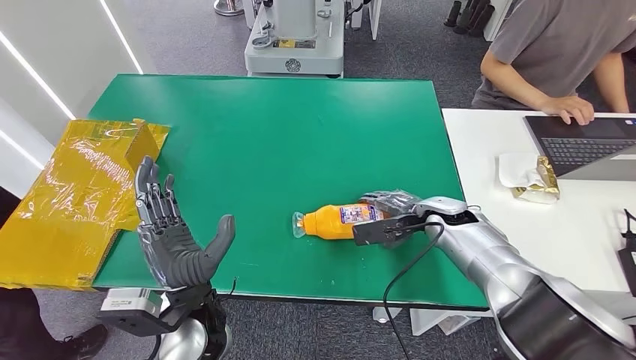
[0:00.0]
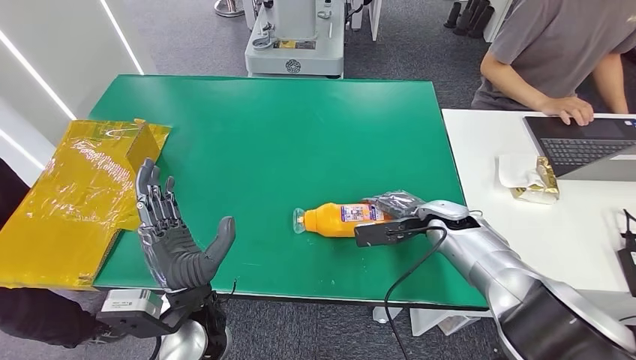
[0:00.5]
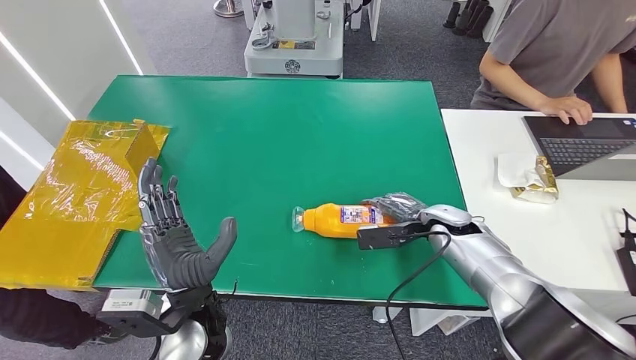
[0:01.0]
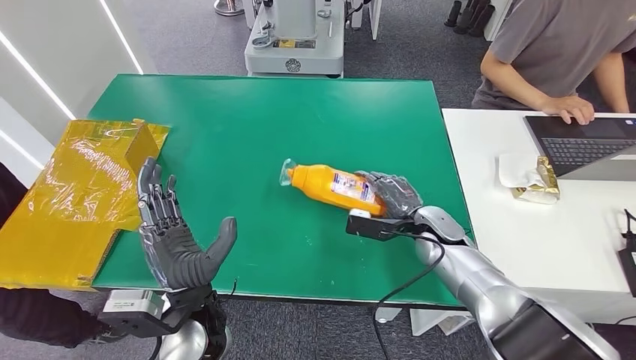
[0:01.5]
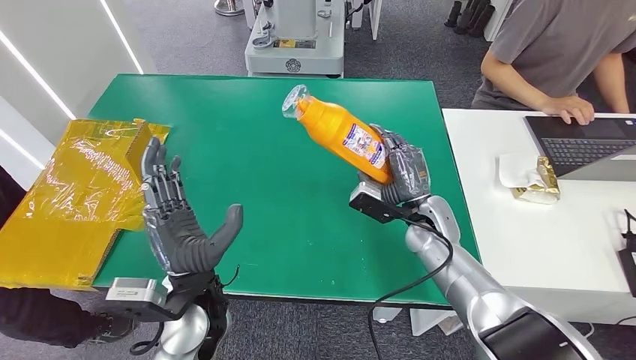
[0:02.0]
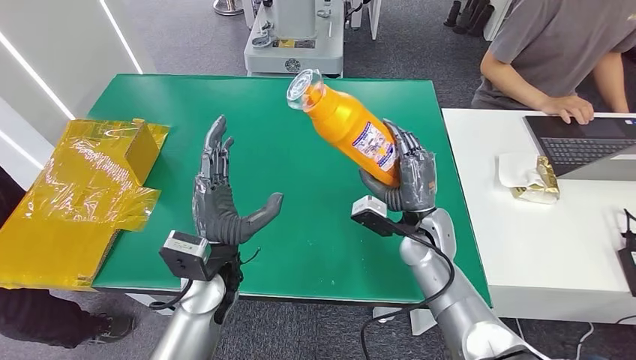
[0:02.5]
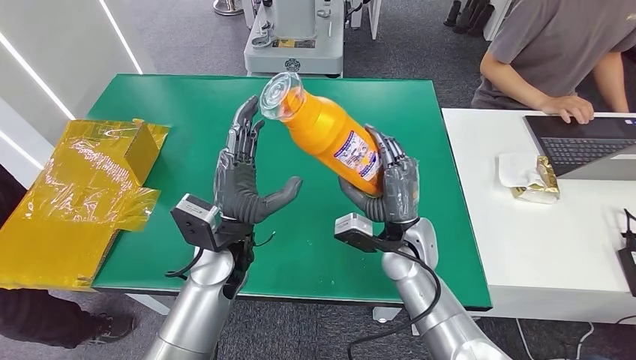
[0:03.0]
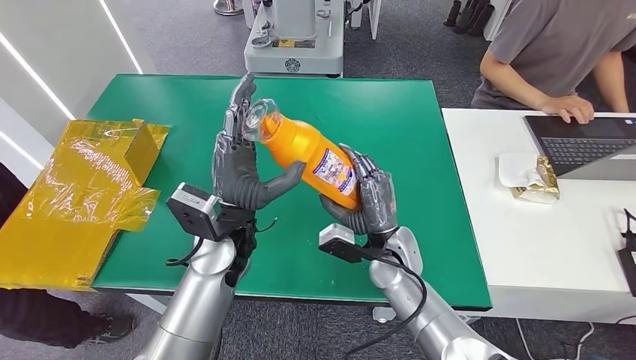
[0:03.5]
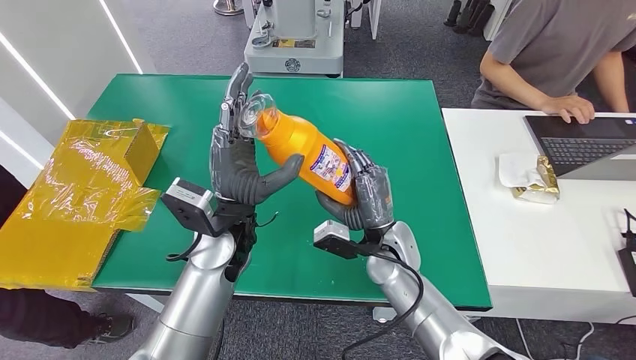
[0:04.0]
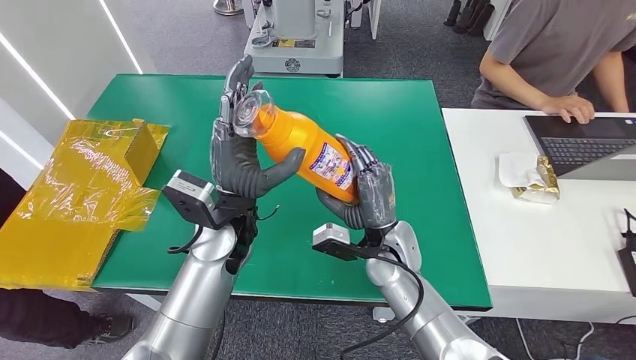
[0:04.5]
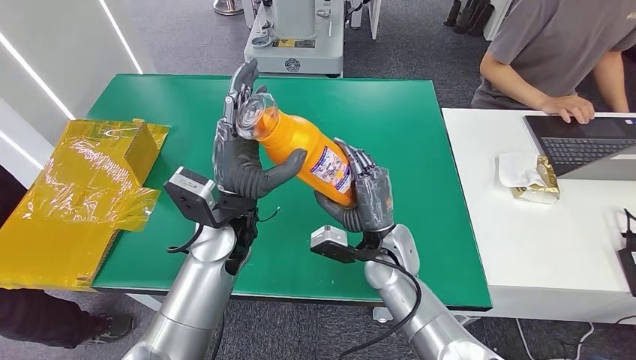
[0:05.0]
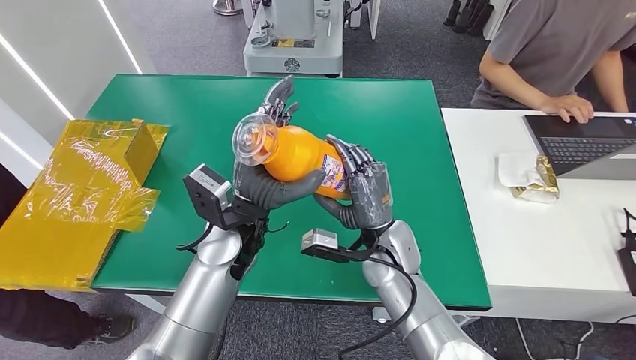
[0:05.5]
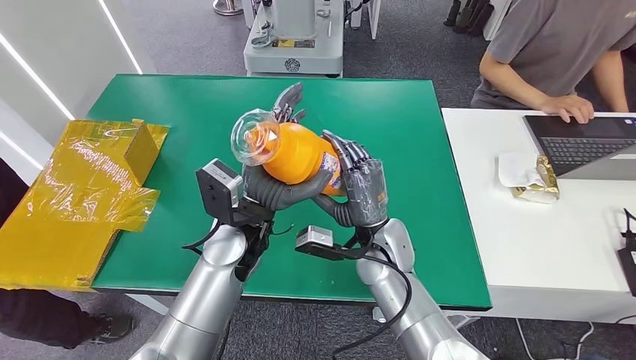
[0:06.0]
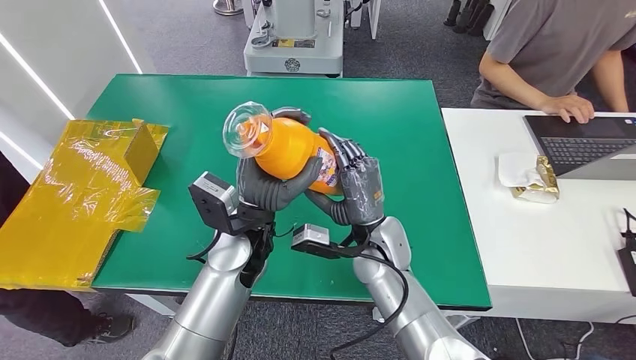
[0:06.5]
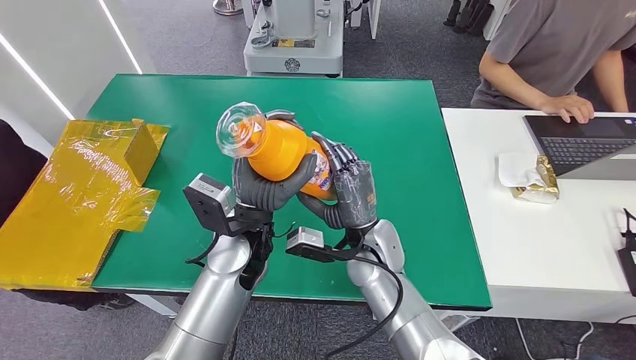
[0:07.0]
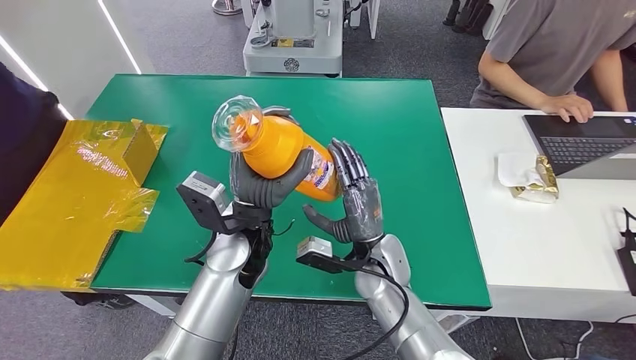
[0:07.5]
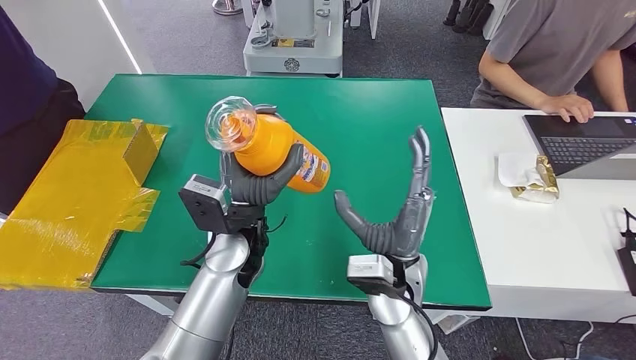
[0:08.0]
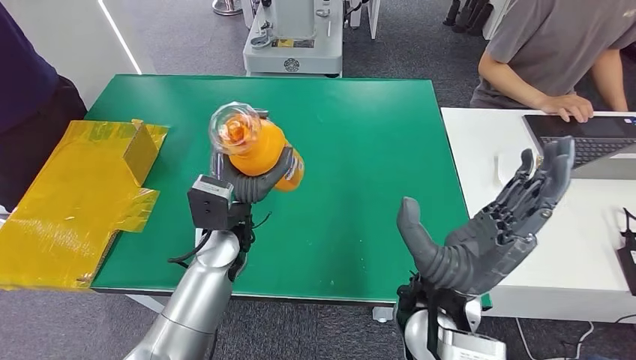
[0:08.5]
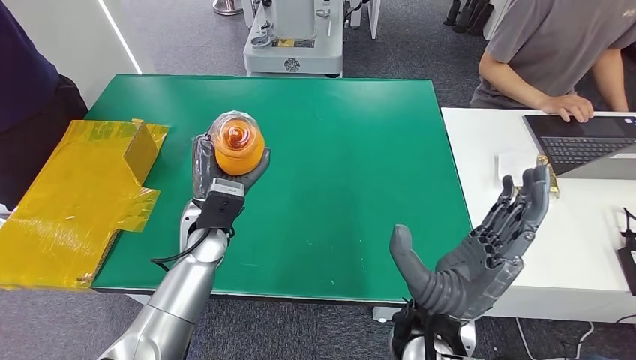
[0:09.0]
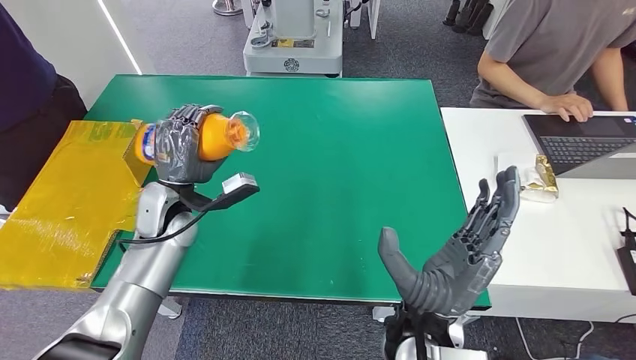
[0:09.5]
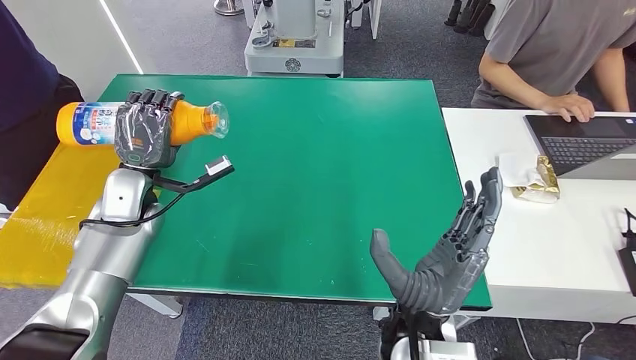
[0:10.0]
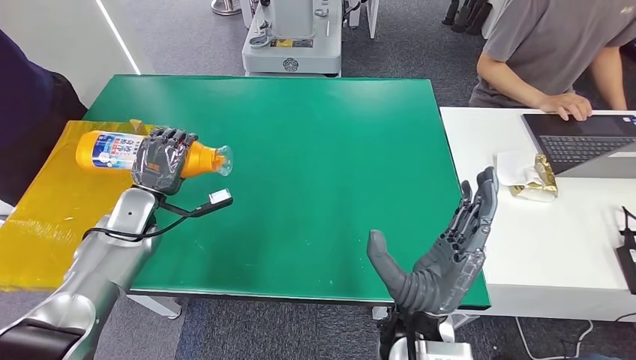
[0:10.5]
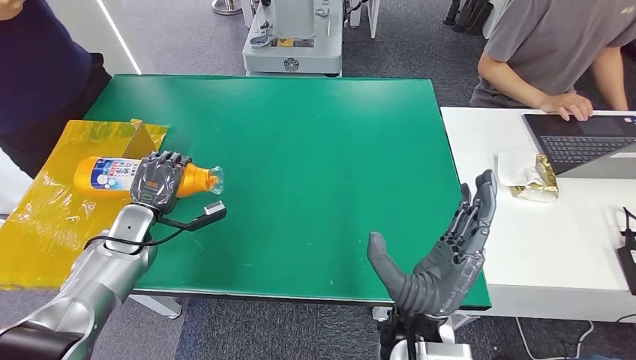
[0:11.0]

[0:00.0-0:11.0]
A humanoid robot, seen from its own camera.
Step, 0:00.0 to 0:02.5: Pick up the bottle from the table.
0:00.0 to 0:02.0: The right hand moves to the left, roughly 5 cm.
0:03.5 to 0:07.5: The hands move only a little.

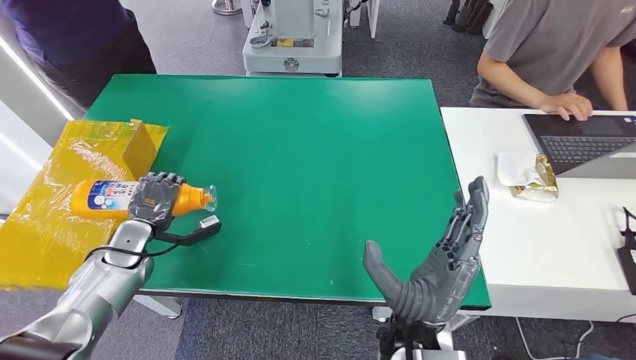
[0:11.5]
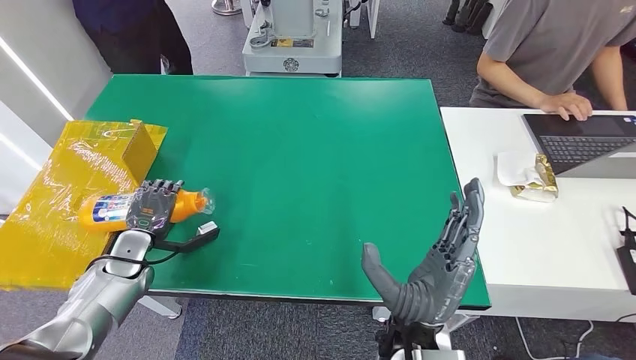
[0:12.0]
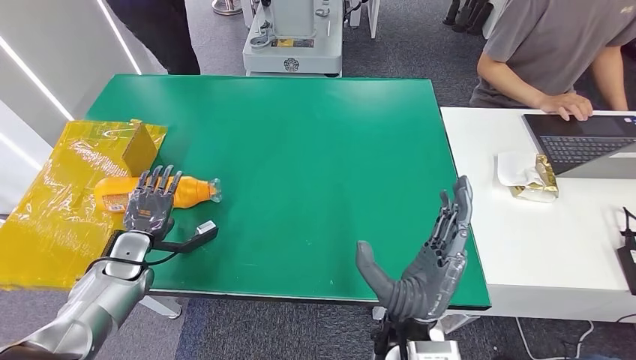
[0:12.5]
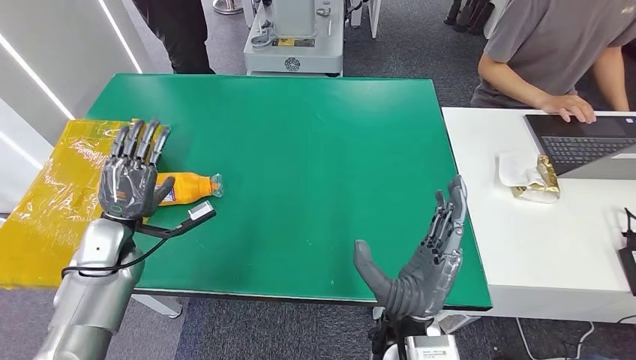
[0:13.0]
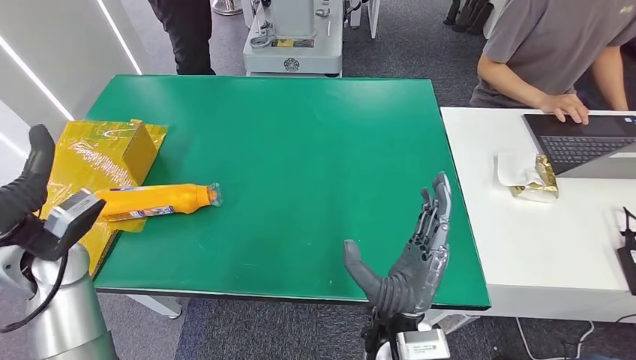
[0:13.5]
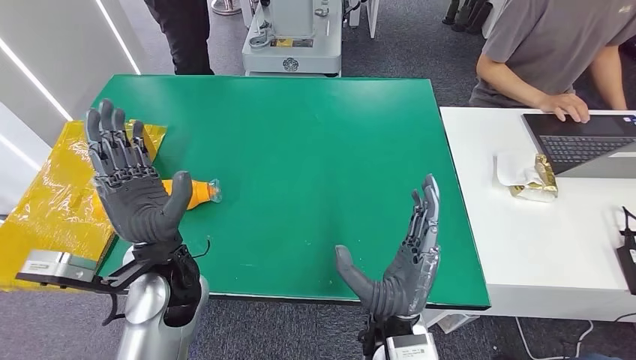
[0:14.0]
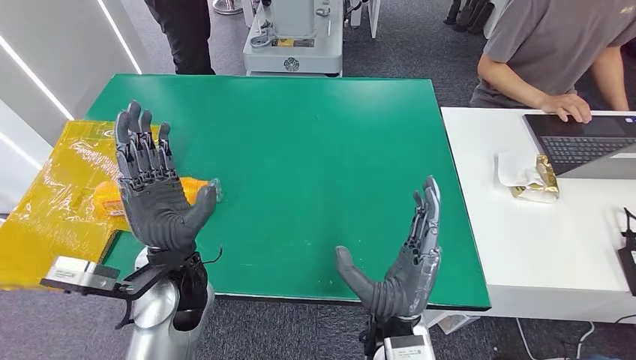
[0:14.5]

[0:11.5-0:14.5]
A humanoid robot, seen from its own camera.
Step, 0:11.5 to 0:14.5: Turn the bottle to the front side.
0:13.0 to 0:14.5: The left hand shifts some 20 cm to the right.
